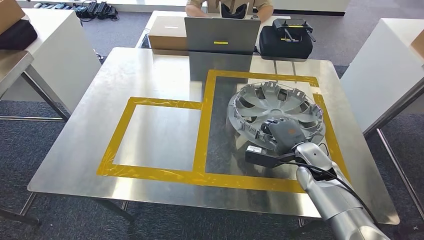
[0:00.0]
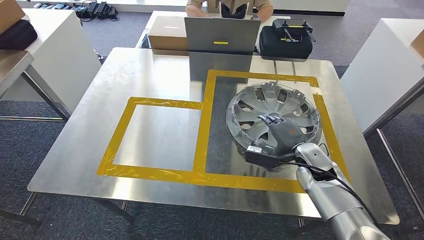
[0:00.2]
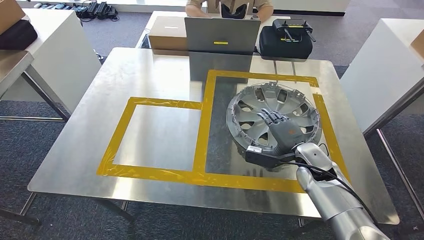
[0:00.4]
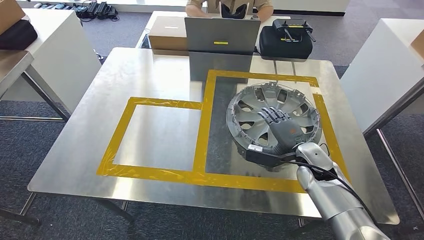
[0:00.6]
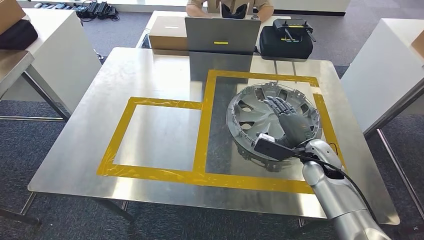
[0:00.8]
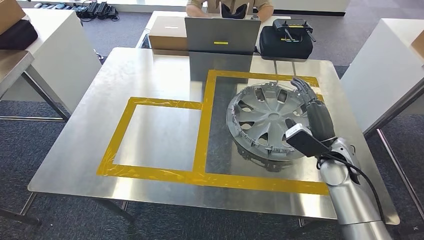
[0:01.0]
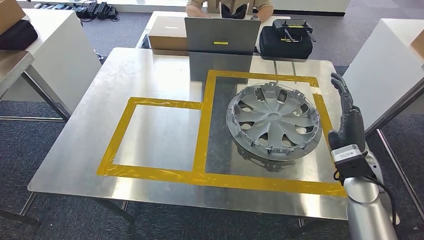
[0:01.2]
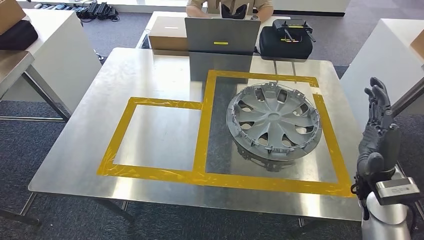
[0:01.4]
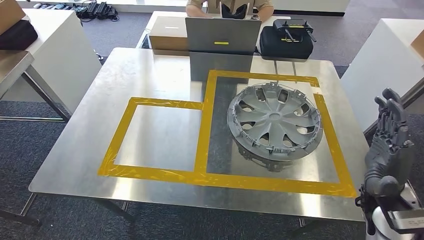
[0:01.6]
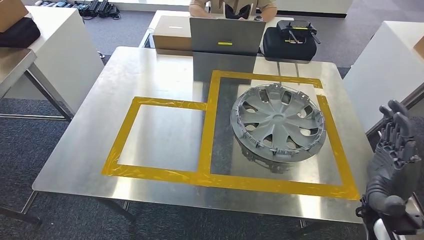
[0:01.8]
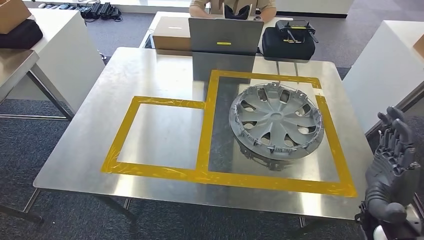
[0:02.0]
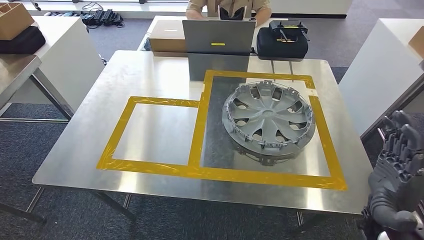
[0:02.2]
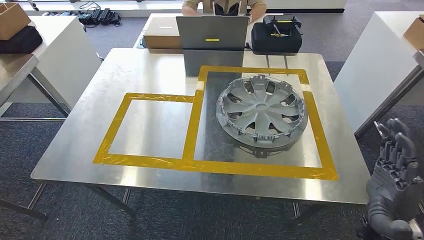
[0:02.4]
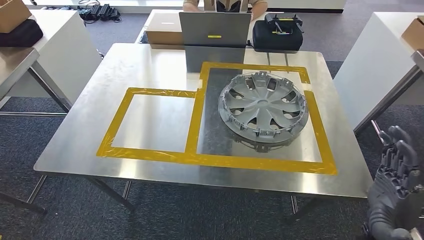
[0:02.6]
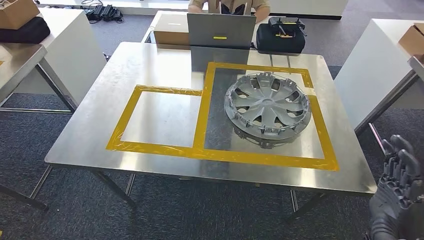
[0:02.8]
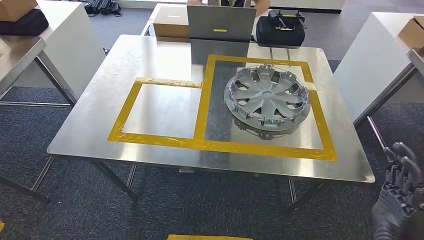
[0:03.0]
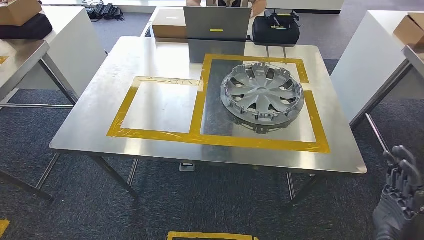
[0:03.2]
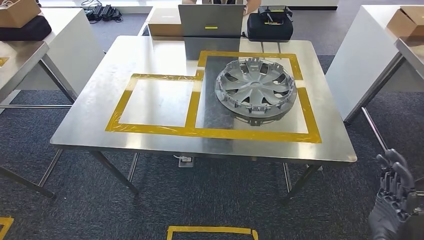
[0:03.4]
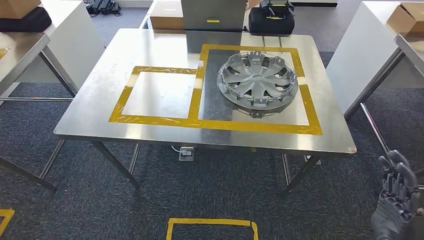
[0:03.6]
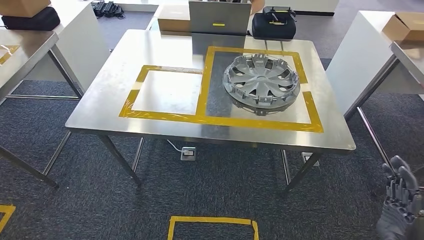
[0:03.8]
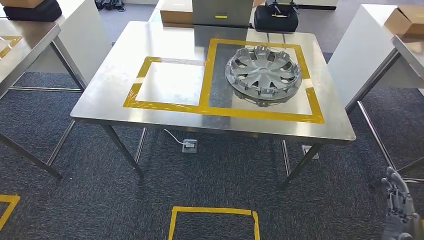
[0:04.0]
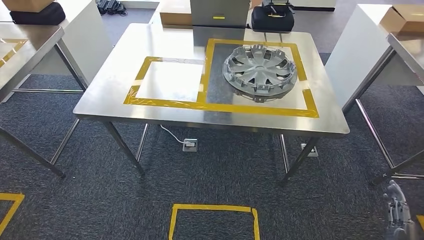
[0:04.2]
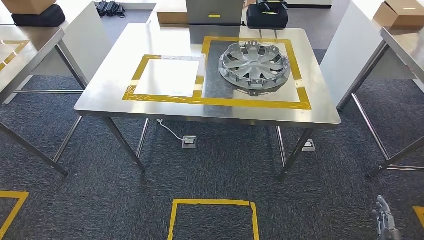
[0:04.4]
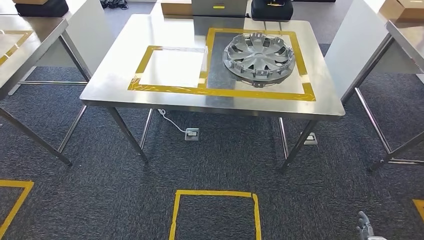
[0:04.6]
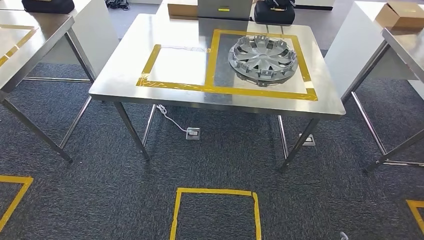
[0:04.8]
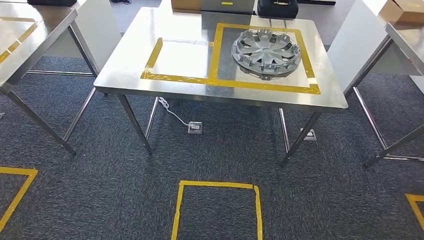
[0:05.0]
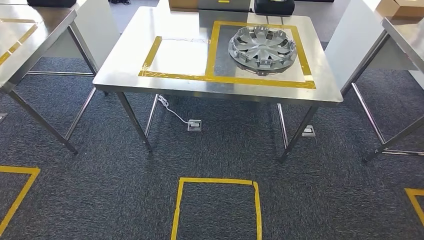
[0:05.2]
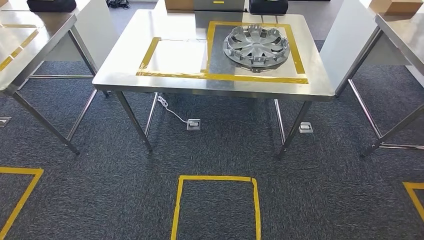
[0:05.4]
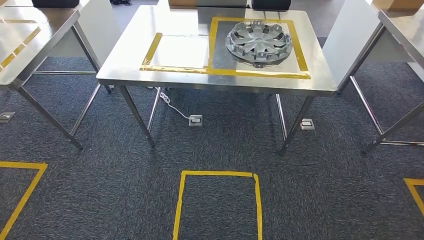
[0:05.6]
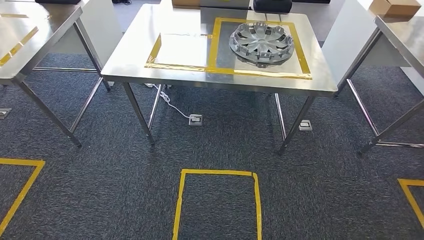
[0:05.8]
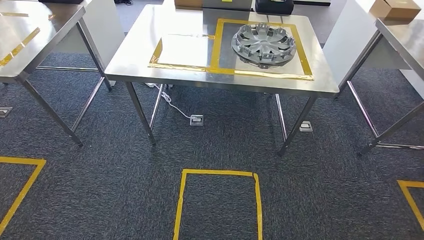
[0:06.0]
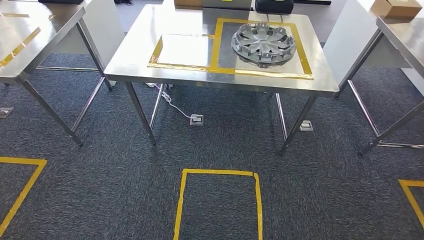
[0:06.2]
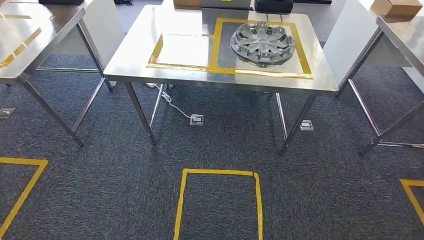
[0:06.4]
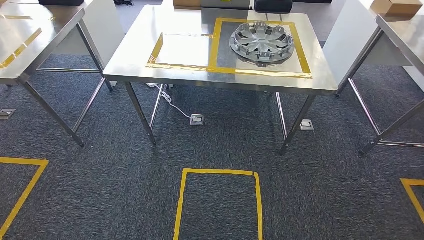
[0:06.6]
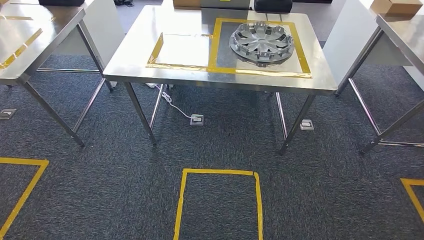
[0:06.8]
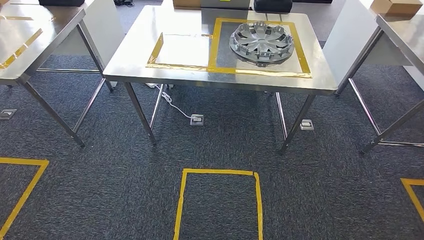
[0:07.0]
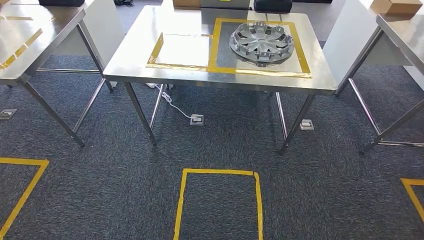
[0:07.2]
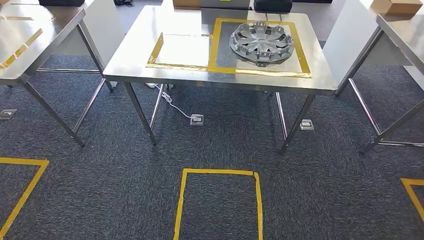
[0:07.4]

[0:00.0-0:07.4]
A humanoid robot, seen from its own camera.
Step, 0:02.0 to 0:07.2: Move to the initial position at the workbench.
0:00.0 to 0:01.4: The right hand shifts roughly 15 cm backward, to the right and upward.
0:06.0 to 0:07.4: The hands make only small movements.
